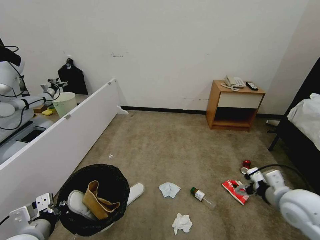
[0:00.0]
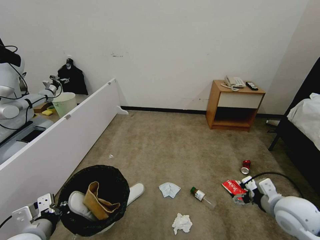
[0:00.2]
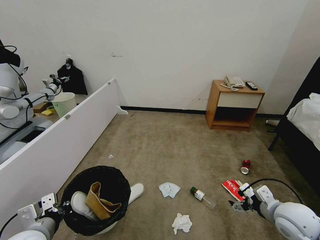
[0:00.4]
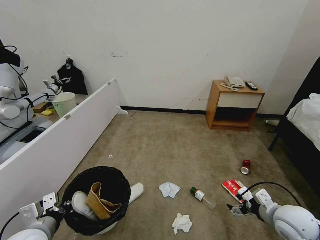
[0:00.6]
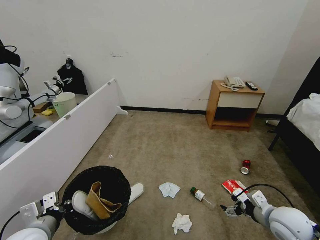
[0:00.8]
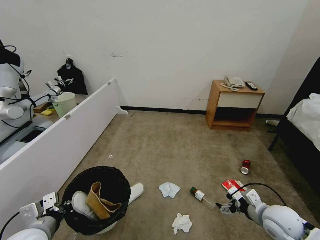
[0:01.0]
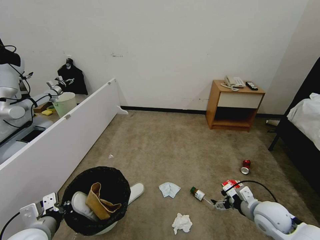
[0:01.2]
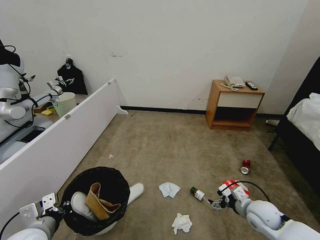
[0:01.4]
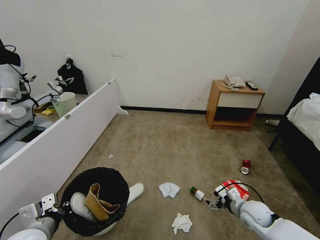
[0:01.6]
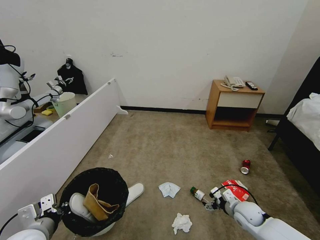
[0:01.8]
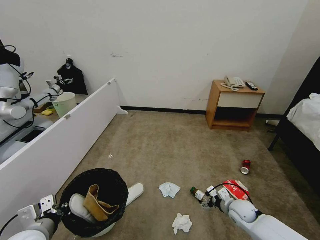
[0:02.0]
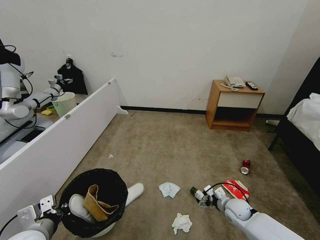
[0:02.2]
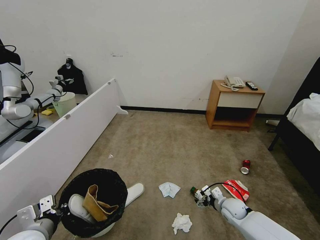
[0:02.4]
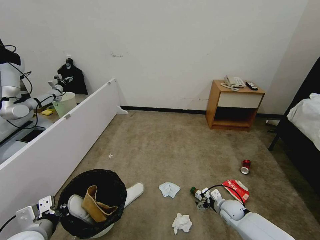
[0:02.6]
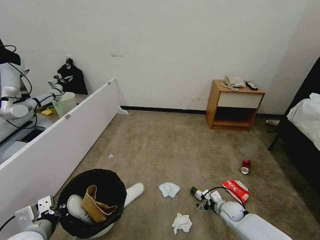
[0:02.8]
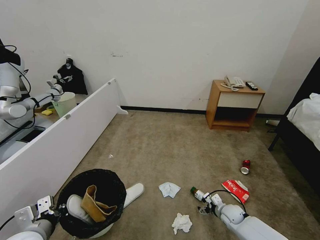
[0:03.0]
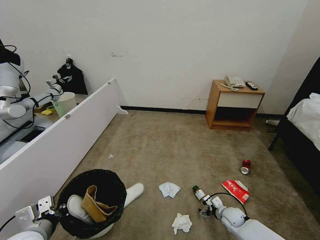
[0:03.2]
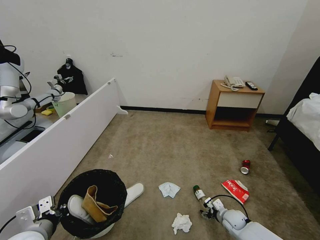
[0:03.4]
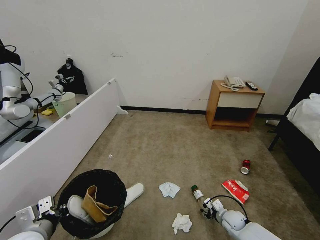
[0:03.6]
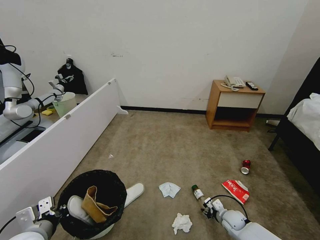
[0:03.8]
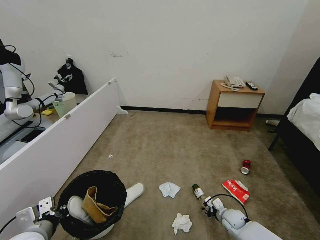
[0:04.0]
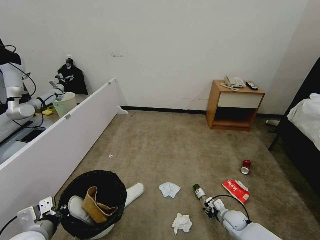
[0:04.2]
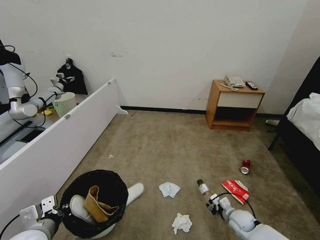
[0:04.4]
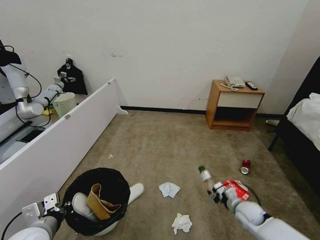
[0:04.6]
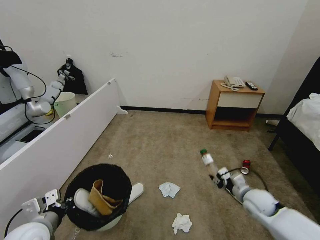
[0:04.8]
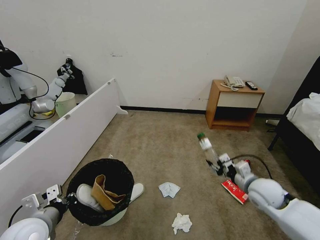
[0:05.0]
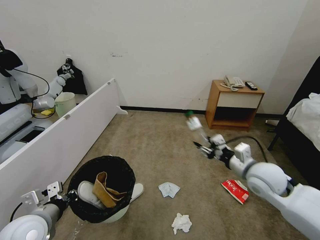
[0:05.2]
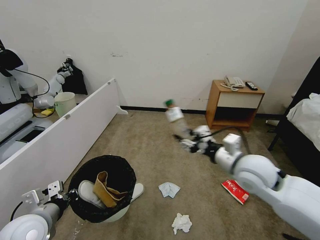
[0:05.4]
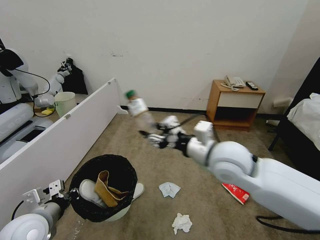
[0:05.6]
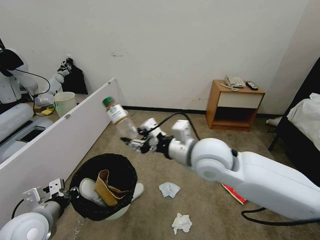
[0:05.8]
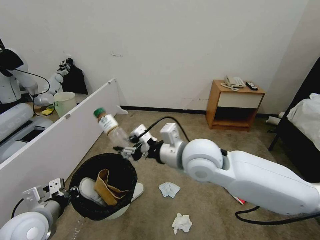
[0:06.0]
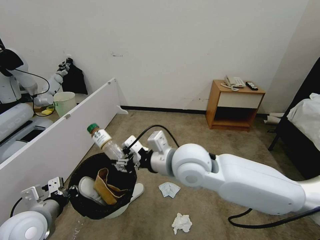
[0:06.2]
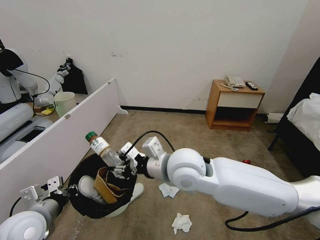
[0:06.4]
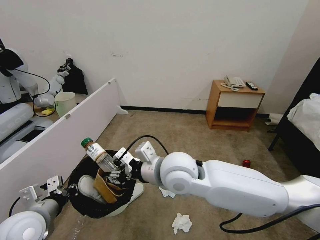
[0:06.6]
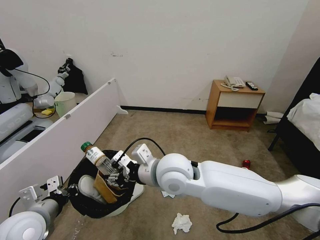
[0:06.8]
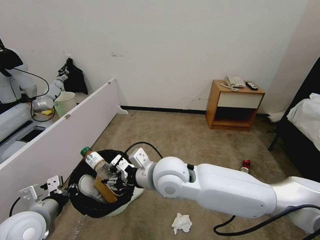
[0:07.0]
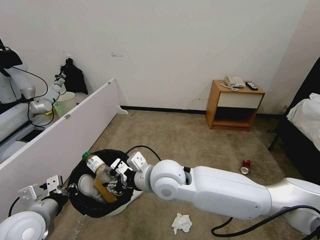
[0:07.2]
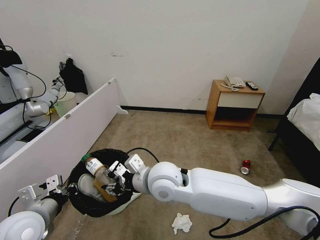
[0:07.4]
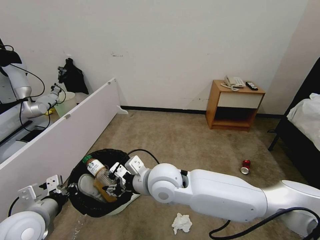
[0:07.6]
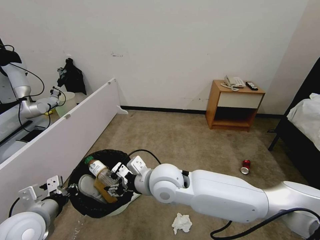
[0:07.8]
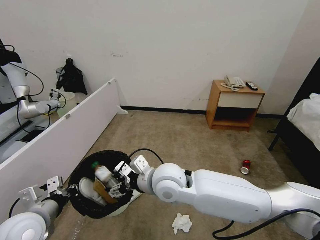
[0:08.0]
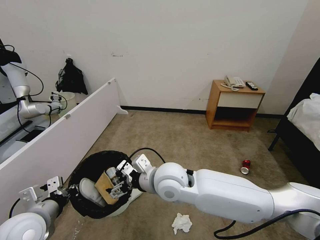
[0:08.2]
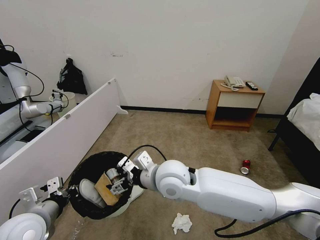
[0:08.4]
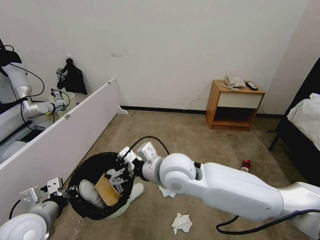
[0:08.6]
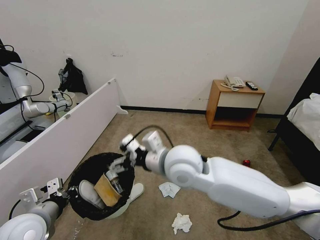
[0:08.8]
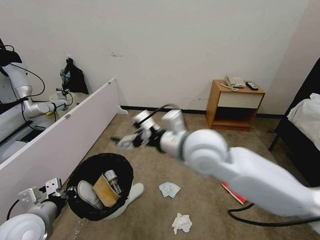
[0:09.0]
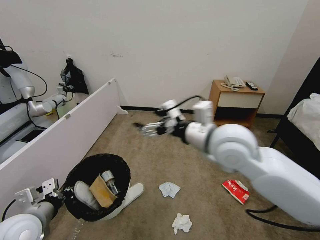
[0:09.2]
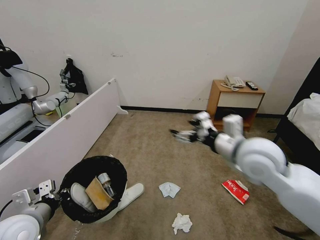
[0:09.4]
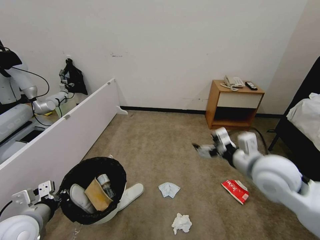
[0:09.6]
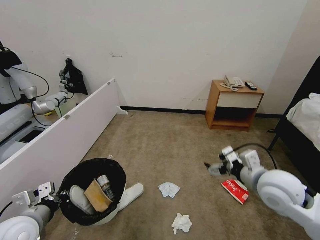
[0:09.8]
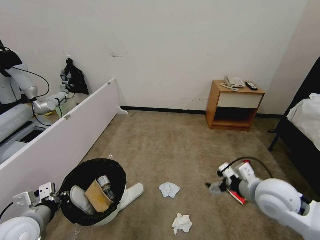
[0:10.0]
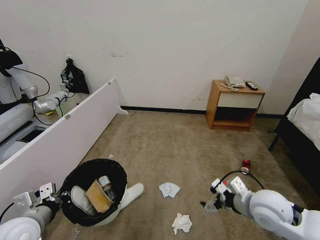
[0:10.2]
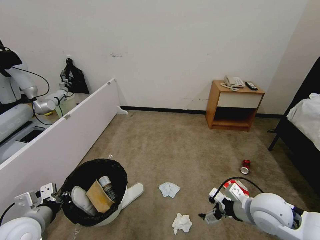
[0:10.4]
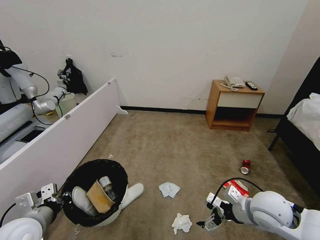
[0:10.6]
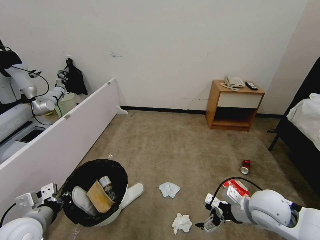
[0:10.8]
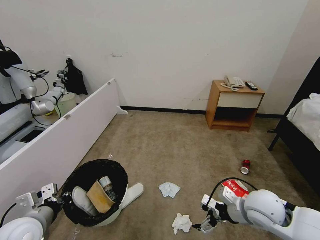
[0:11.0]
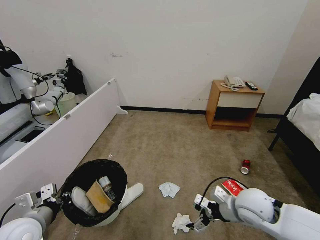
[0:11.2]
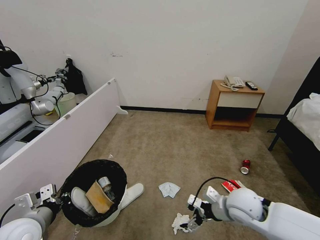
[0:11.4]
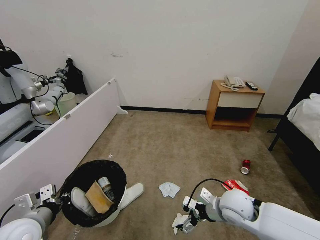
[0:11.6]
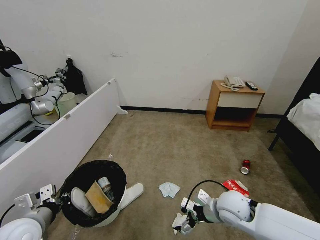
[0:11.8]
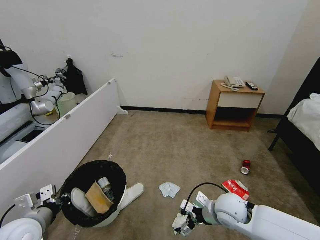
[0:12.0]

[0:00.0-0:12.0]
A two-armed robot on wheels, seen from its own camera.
Task of the whole recording: Pick up the trash bin, then pick up the garbage from the floor and place it into the trash bin.
0:00.0 to 0:01.6: The right gripper heads downward, covering approximately 20 cm.
0:01.6 to 0:03.0: The right gripper shifts about 15 cm downward.
0:03.0 to 0:04.4: The right gripper closes up.
0:04.4 to 0:06.0: The left gripper changes place by approximately 5 cm. Meanwhile the right gripper travels upward and to the left by approximately 50 cm.
0:06.0 to 0:07.6: The right gripper goes some 10 cm to the left and downward.
0:07.6 to 0:09.0: The right gripper goes some 15 cm upward and to the right, and opens up.
0:09.0 to 0:10.4: The right gripper goes roughly 30 cm to the right and downward.
0:10.4 to 0:12.0: The right gripper is displaced to the left and downward by roughly 10 cm.

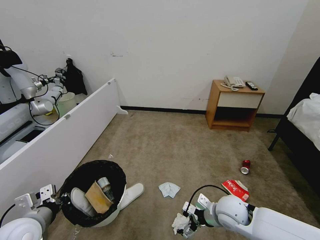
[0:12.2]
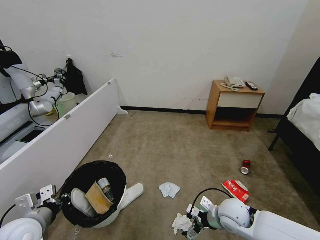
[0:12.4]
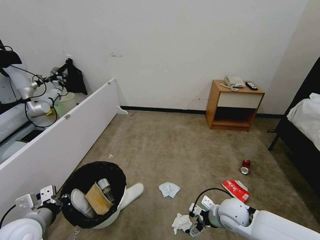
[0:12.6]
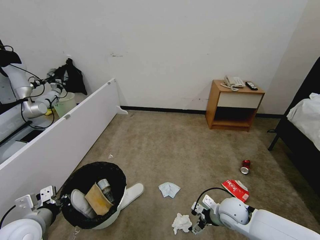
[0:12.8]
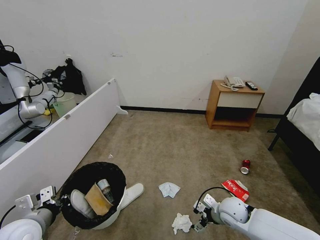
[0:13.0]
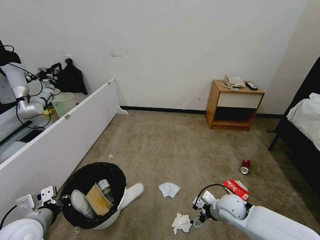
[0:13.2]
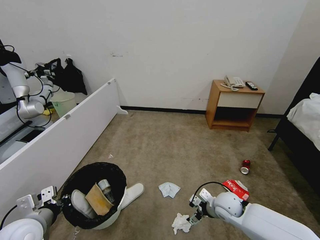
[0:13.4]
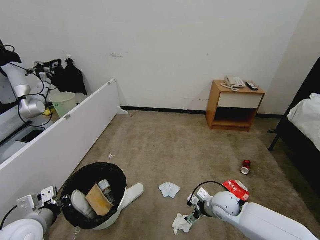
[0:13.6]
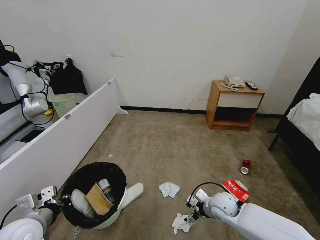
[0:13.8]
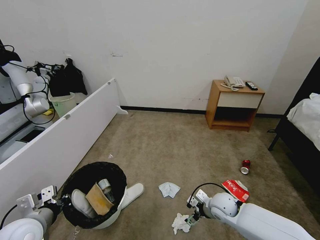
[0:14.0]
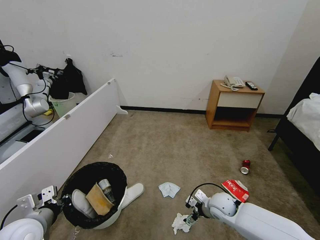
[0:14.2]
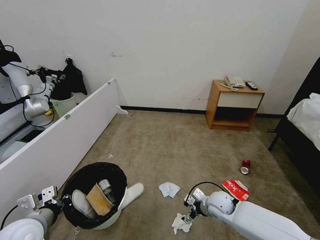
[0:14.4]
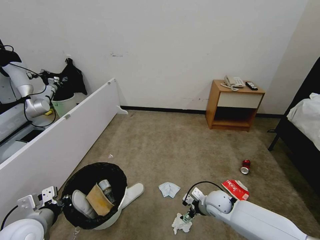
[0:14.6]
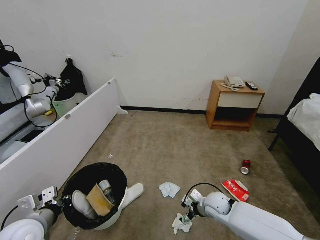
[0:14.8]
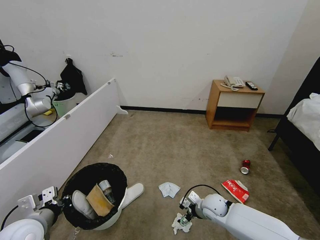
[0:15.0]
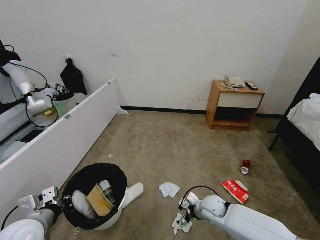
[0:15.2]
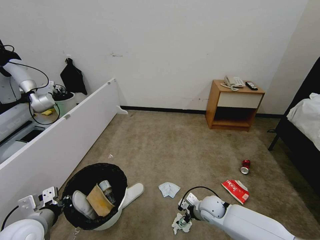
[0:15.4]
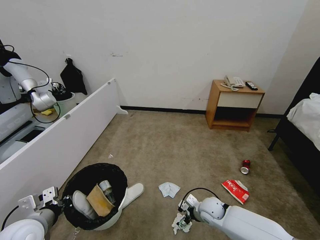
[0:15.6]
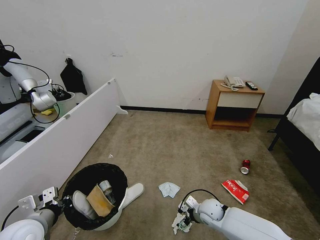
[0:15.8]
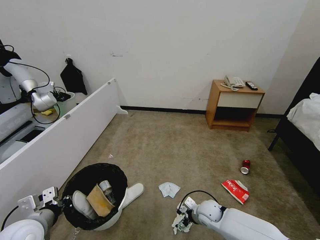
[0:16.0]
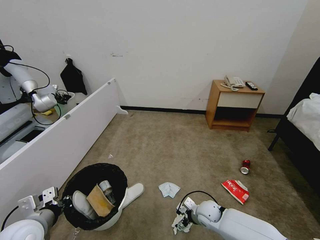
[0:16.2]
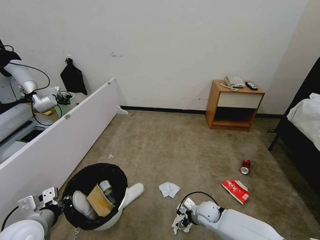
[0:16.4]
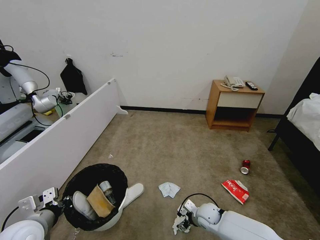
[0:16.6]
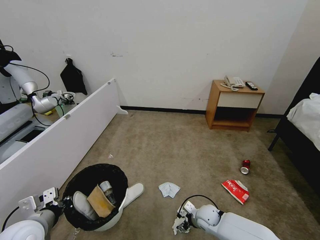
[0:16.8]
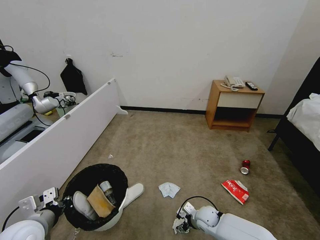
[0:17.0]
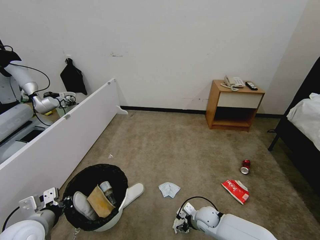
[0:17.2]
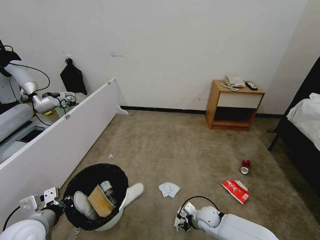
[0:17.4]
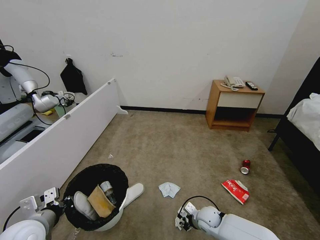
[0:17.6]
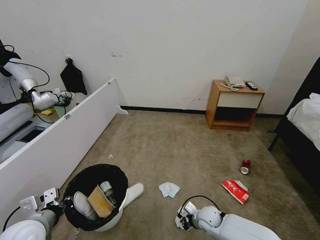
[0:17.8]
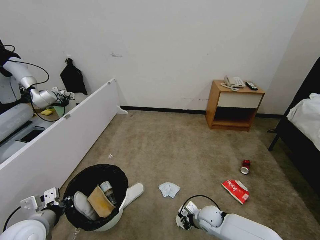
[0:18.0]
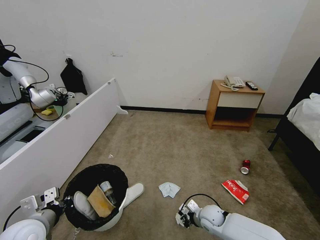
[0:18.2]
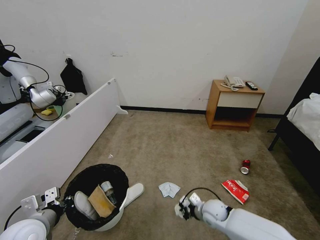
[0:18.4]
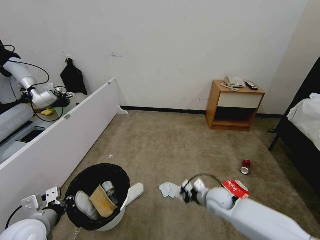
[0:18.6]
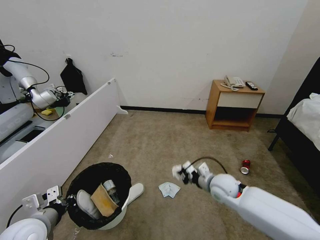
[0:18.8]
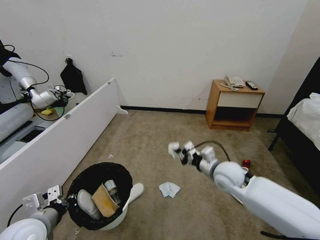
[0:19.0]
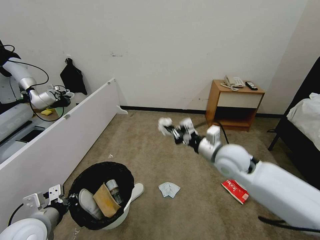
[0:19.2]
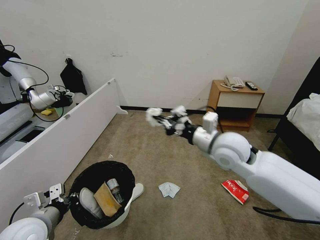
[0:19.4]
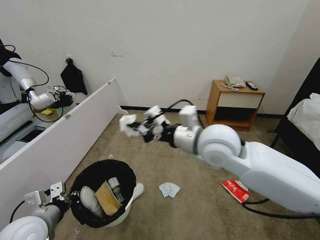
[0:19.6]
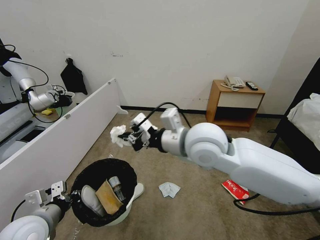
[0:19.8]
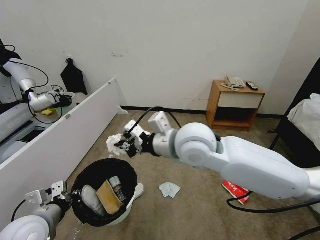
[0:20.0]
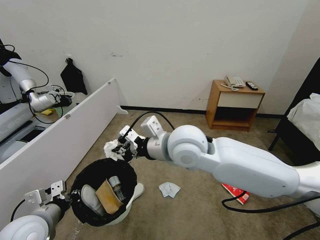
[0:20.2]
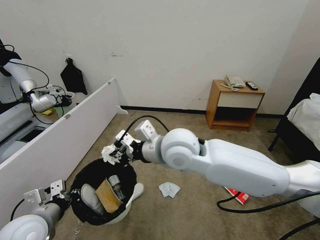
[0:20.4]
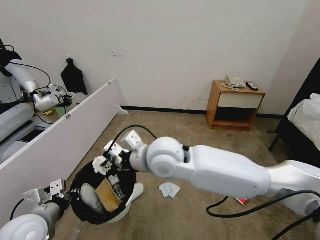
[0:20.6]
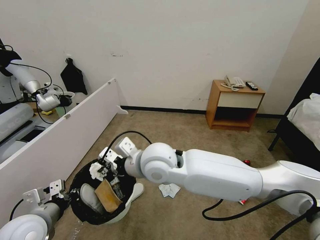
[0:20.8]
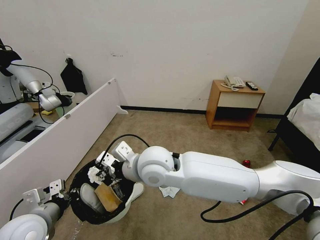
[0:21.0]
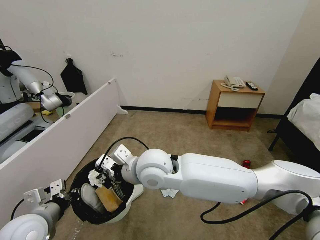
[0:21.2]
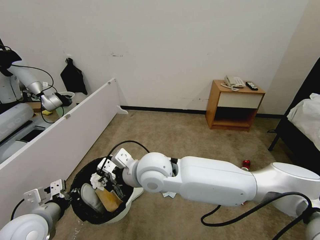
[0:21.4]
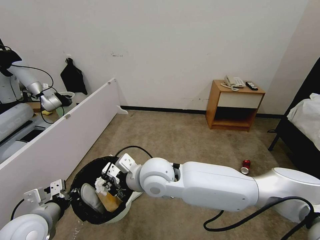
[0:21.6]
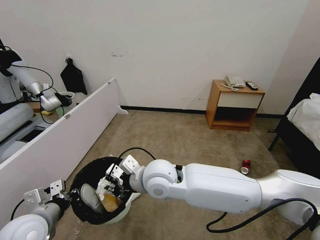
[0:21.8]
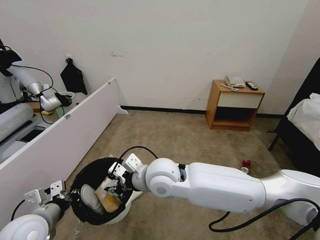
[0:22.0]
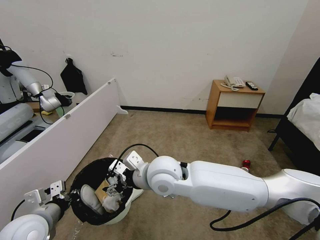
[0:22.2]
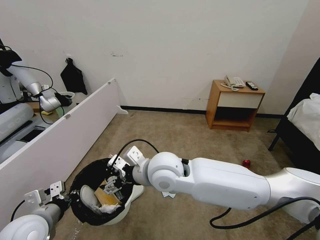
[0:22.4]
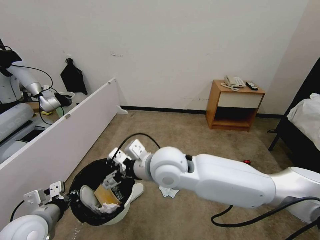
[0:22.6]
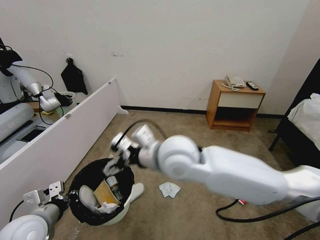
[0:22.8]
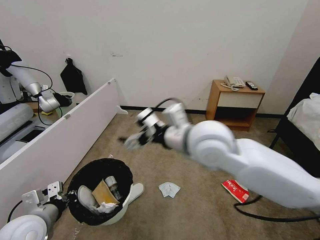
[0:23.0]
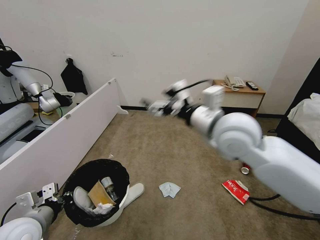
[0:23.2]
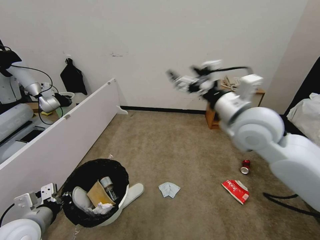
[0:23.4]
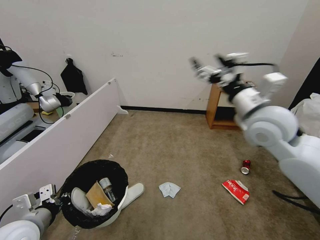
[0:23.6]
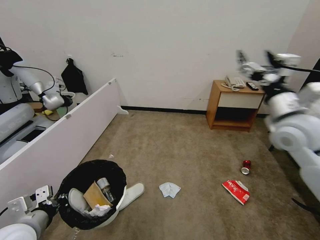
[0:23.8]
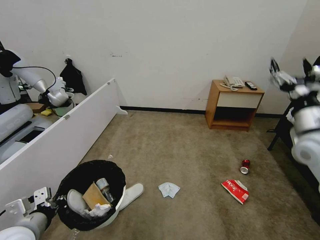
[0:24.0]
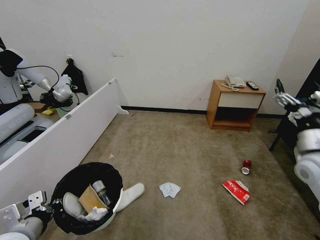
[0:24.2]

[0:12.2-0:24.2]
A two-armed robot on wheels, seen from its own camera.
Task of the whole recording: Pick up the trash bin, then pick up the garbage from the floor and place it into the trash bin.
0:12.2 to 0:13.8: The right gripper travels downward by some 5 cm.
0:13.8 to 0:15.2: The right gripper shifts by approximately 5 cm.
0:15.2 to 0:16.6: The right gripper travels downward by some 5 cm.
0:16.6 to 0:18.2: The right gripper closes.
0:18.2 to 0:19.8: The right gripper is displaced upward by approximately 40 cm.
0:19.8 to 0:21.2: The right gripper travels to the left and downward by some 15 cm.
0:21.2 to 0:22.6: The right gripper opens up.
0:22.6 to 0:24.2: The right gripper heads to the right, covering roughly 40 cm.
